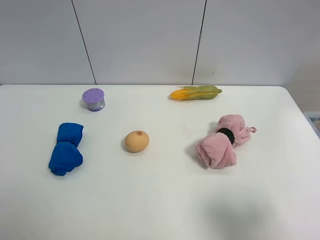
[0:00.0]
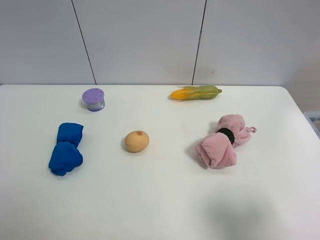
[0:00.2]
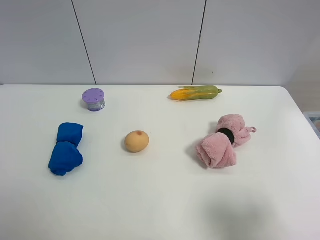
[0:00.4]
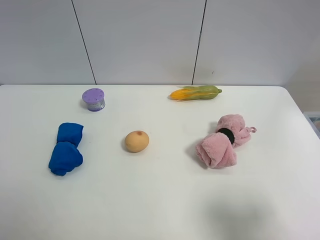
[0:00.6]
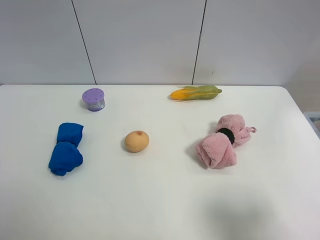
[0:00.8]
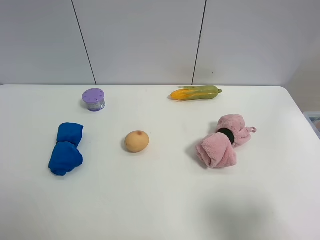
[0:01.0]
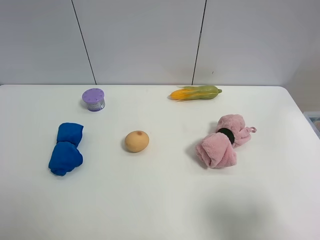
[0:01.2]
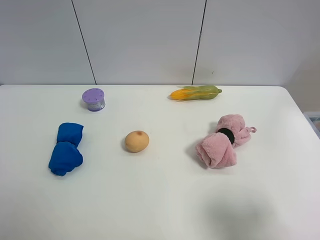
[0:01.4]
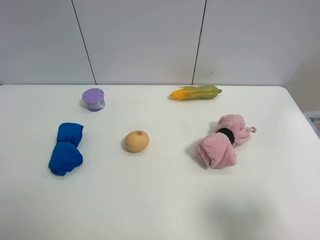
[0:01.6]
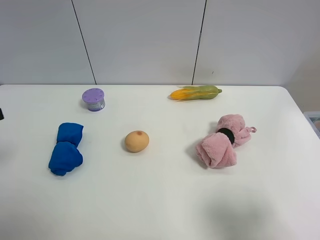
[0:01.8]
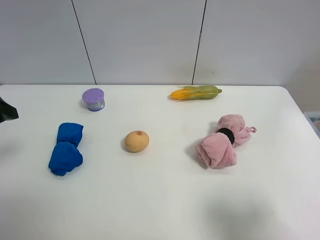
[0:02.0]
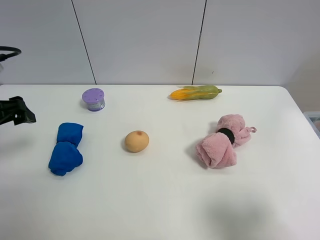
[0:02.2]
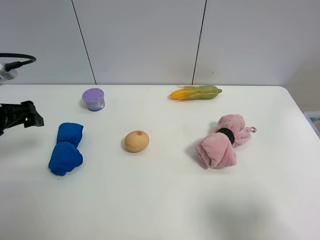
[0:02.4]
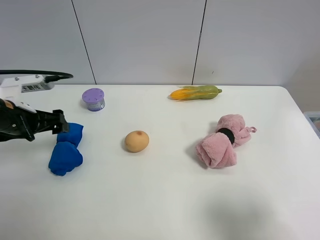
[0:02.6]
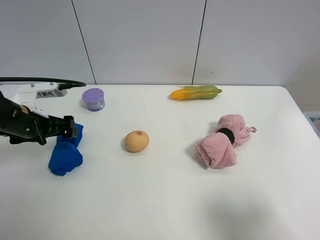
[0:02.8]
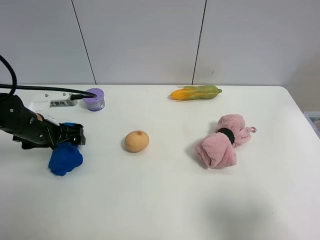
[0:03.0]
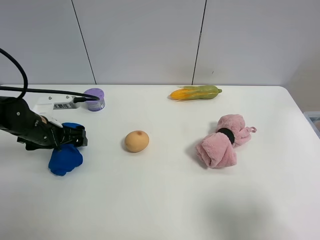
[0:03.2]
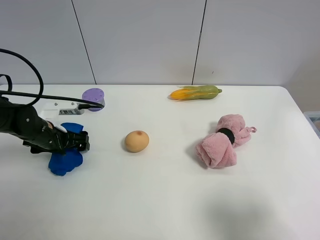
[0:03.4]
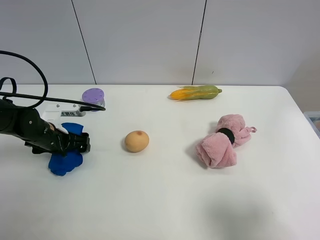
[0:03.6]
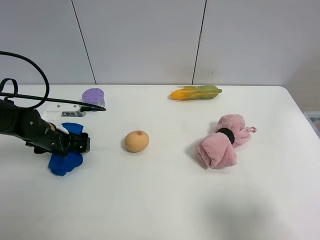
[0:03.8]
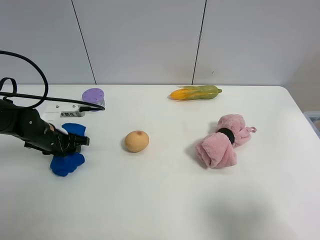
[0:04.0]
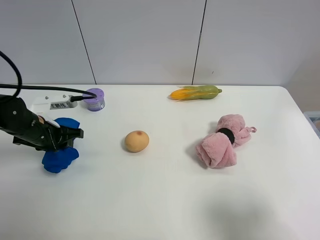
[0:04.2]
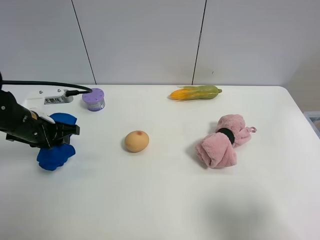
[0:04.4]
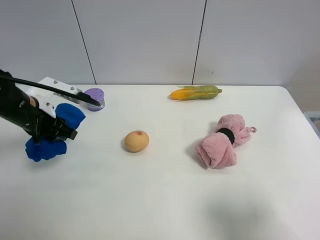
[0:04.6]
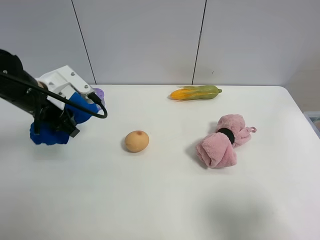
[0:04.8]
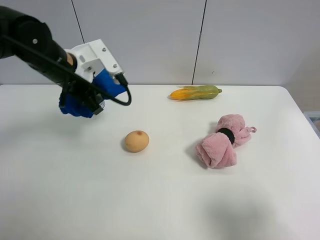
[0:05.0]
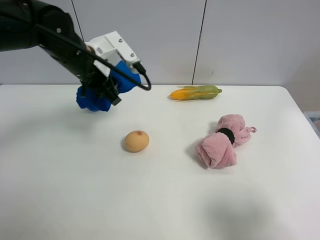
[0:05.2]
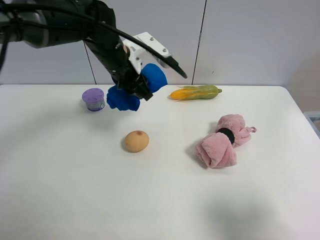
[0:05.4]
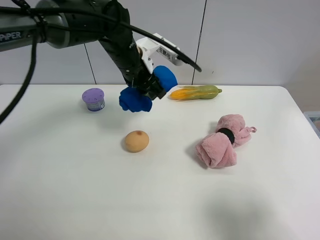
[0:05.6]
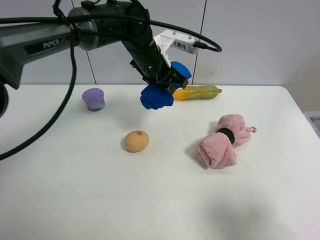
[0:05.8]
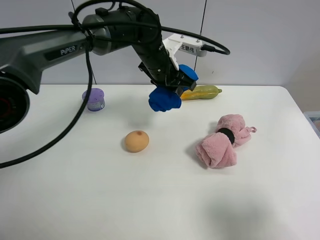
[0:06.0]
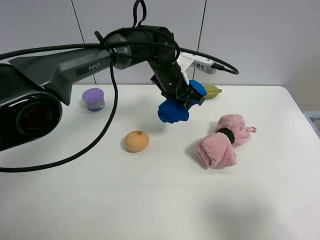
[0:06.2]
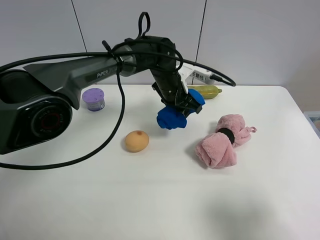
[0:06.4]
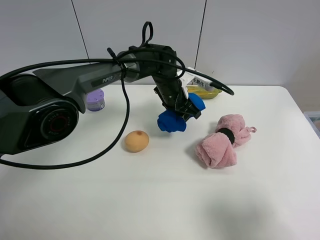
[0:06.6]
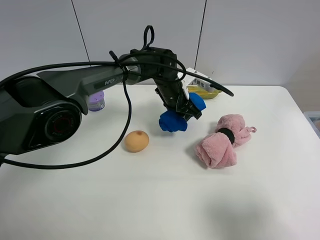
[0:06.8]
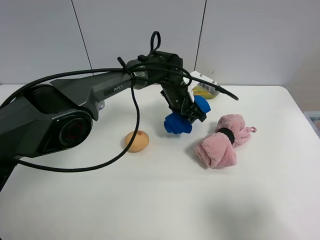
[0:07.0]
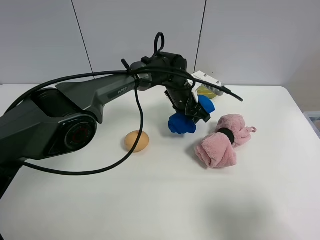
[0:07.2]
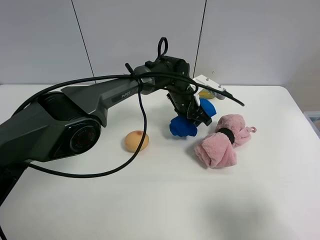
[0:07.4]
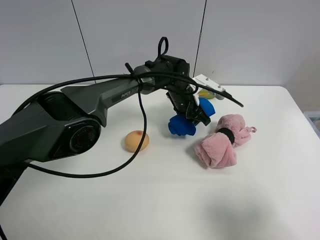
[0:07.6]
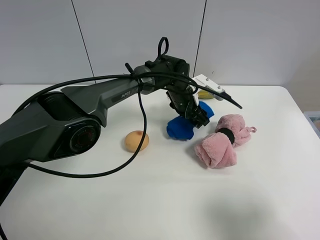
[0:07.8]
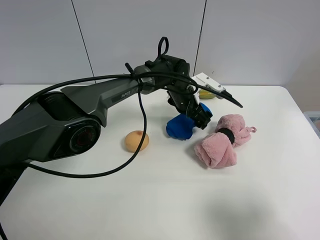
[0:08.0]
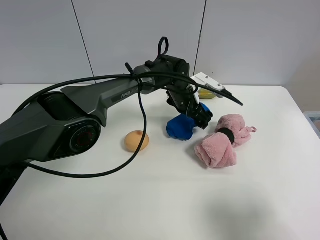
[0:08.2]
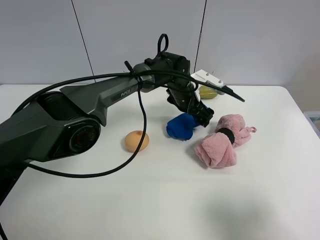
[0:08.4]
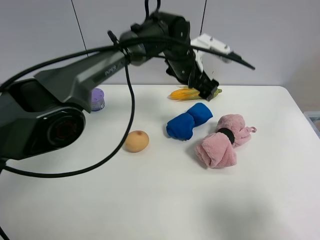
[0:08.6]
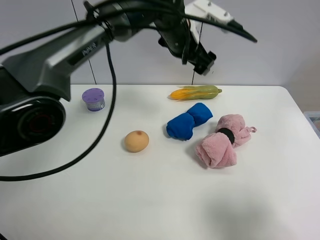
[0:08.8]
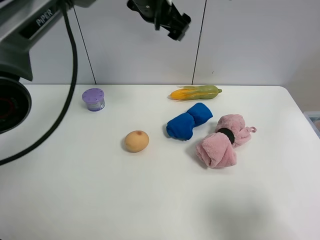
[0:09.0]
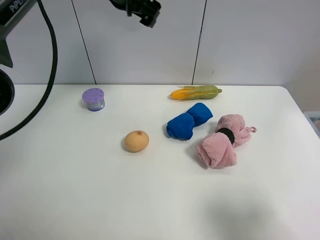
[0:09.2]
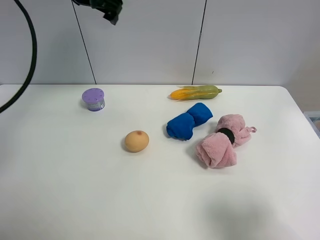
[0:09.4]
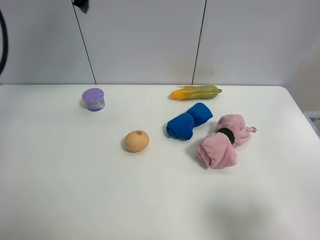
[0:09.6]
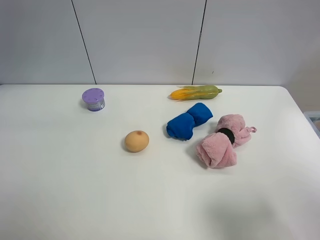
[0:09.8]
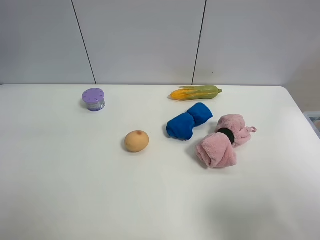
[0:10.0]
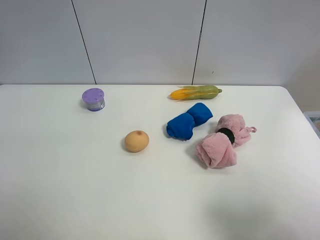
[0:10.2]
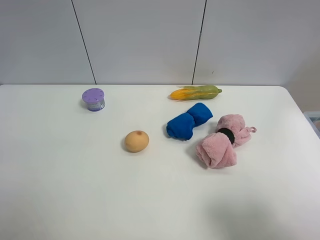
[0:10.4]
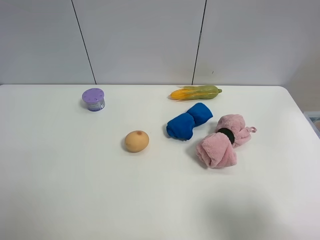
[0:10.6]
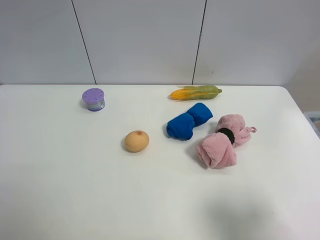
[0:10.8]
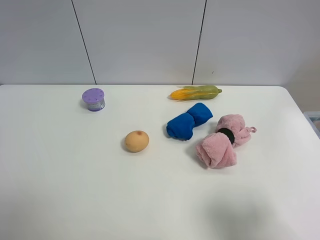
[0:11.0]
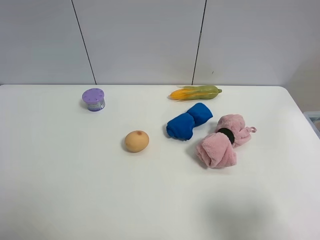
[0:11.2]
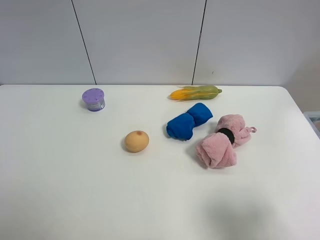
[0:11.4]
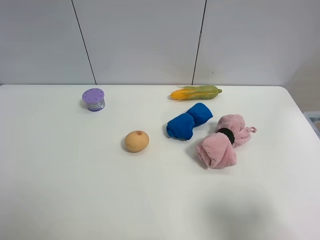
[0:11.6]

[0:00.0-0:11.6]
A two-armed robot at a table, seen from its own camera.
Task of the whole recording: the gripper move the object.
Step, 0:00.0 to 0:04.0: Grasp the blue towel with the left gripper.
Step, 0:04.2 to 0:08.0: Place the blue towel on the table with the left gripper.
0:01.4 to 0:02.8: The left gripper is displaced forward and downward by some 25 cm.
0:02.8 to 0:04.4: The left gripper closes.
0:04.4 to 0:05.8: The left gripper shifts approximately 30 cm to the right and forward.
0:05.8 to 0:07.2: The left gripper goes some 15 cm downward and to the right.
0:07.2 to 0:08.8: The left gripper heads upward, covering roughly 15 cm, and opens.
0:08.8 to 0:10.2: The left gripper travels to the left and upward by approximately 40 cm.

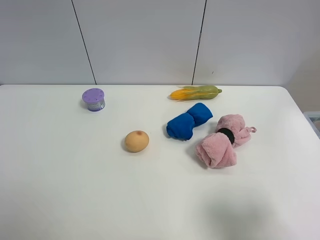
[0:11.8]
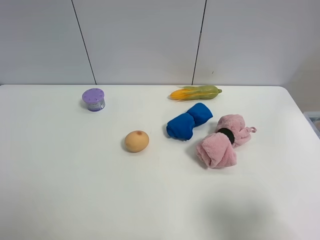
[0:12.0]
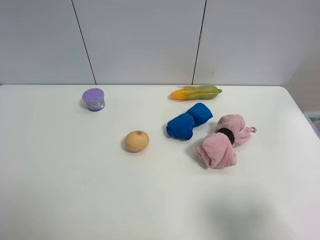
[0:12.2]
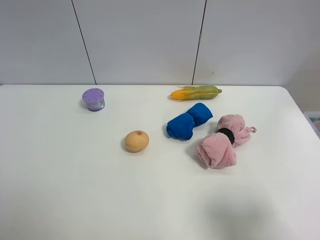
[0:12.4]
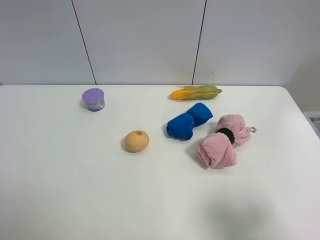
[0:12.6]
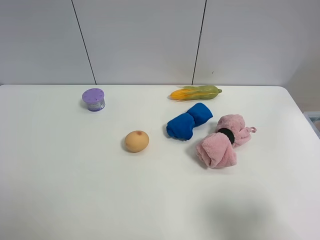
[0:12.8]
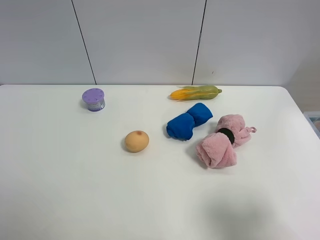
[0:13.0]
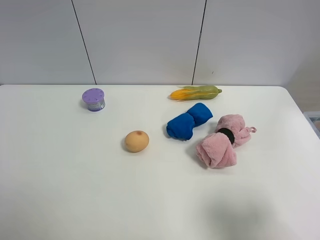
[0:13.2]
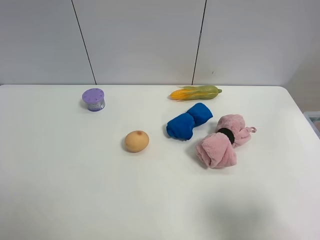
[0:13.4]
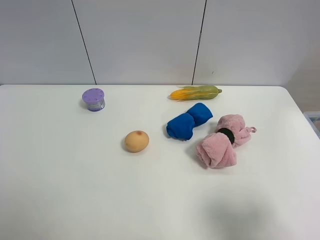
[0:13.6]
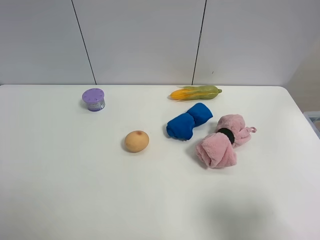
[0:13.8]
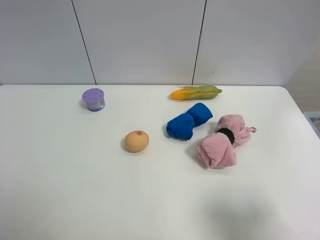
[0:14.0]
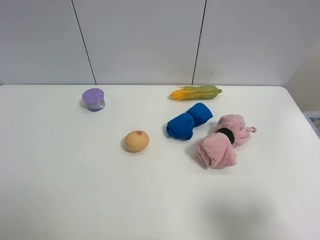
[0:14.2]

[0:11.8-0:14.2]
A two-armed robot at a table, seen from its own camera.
Task of the whole recording: the gripper move the object.
0:13.0 to 0:14.2: The two grippers keep their place.

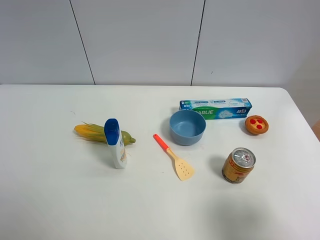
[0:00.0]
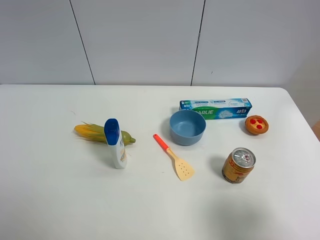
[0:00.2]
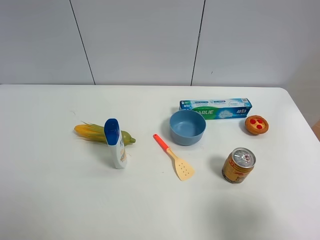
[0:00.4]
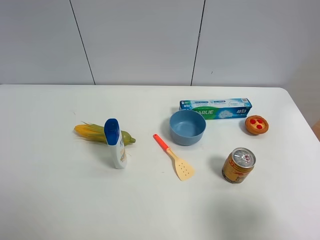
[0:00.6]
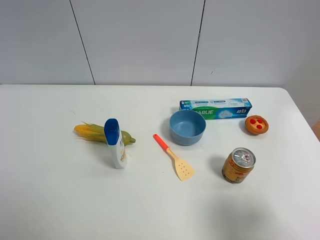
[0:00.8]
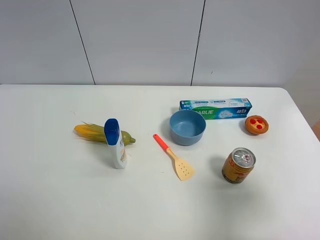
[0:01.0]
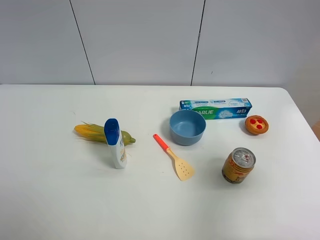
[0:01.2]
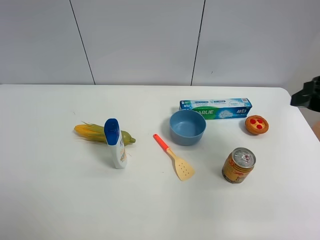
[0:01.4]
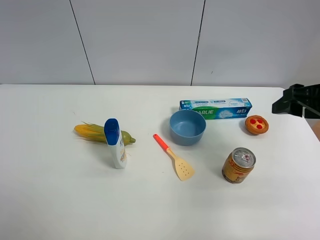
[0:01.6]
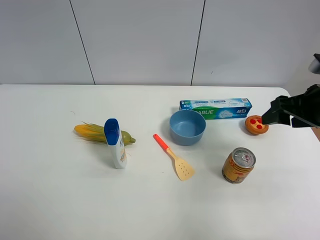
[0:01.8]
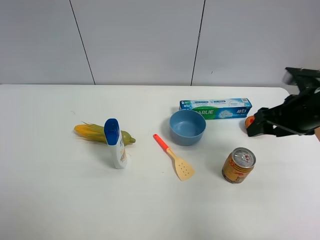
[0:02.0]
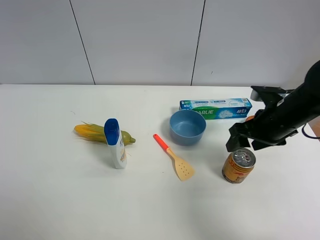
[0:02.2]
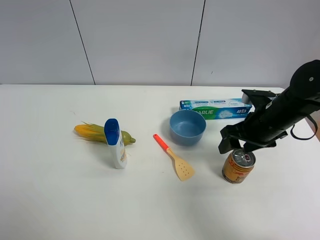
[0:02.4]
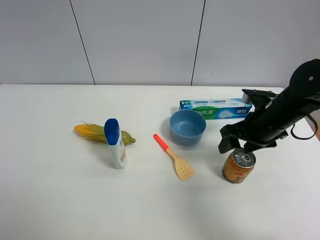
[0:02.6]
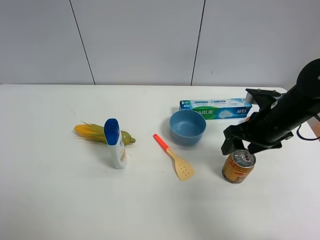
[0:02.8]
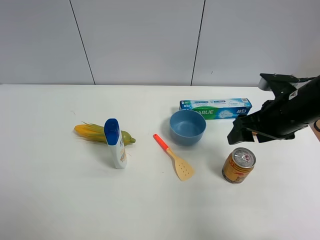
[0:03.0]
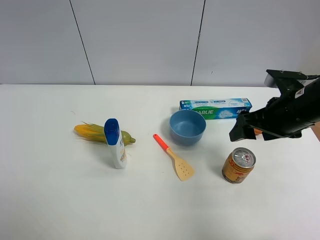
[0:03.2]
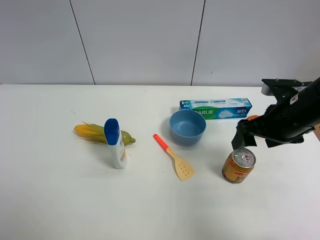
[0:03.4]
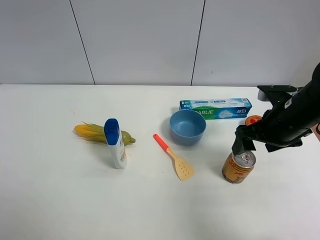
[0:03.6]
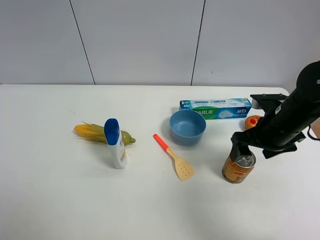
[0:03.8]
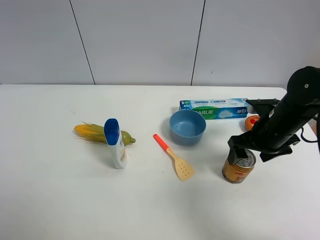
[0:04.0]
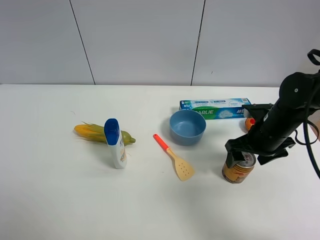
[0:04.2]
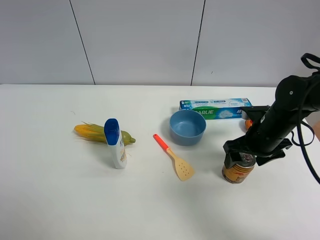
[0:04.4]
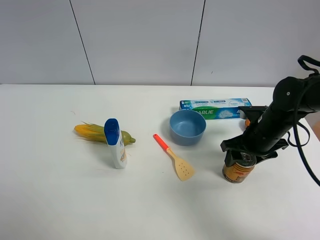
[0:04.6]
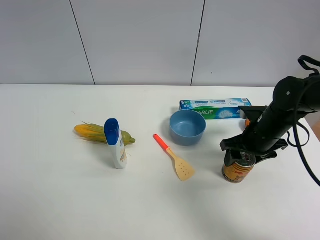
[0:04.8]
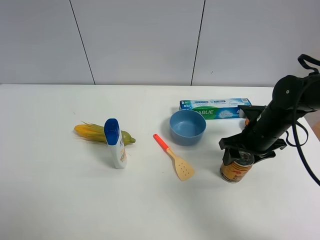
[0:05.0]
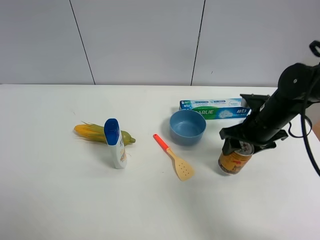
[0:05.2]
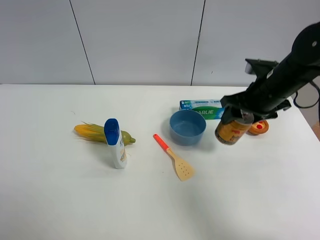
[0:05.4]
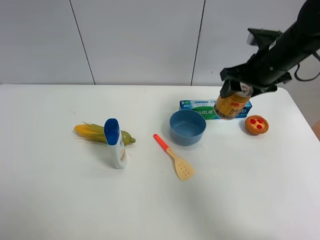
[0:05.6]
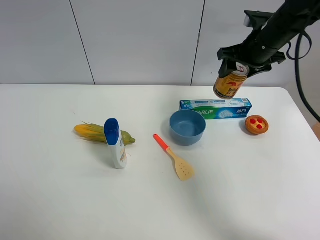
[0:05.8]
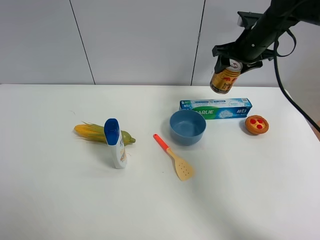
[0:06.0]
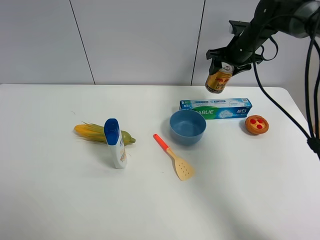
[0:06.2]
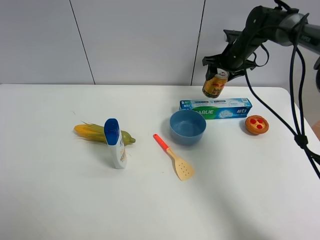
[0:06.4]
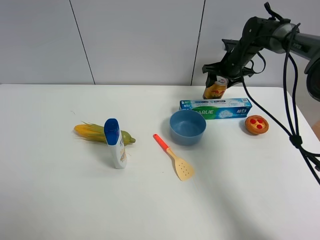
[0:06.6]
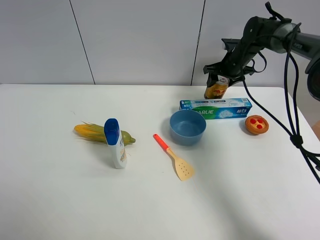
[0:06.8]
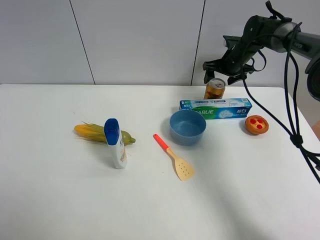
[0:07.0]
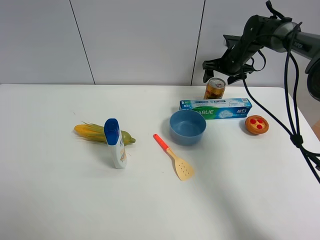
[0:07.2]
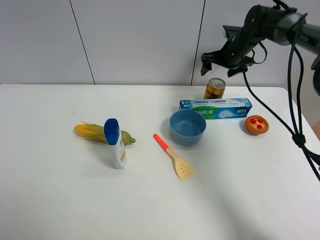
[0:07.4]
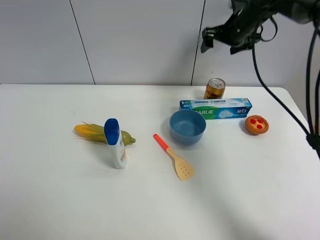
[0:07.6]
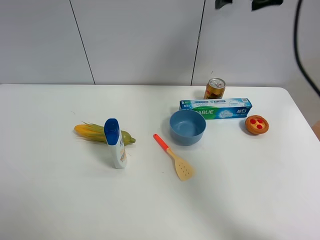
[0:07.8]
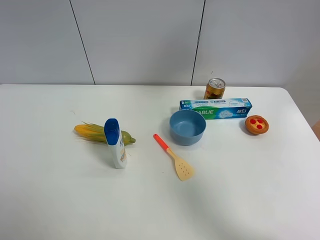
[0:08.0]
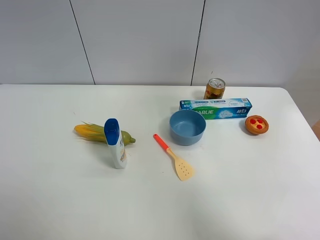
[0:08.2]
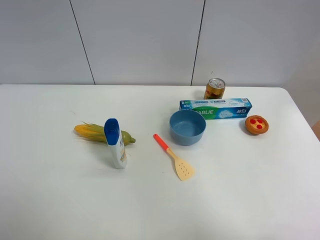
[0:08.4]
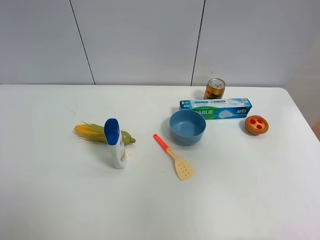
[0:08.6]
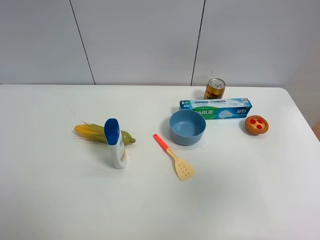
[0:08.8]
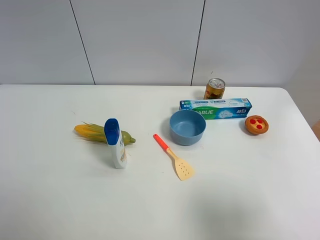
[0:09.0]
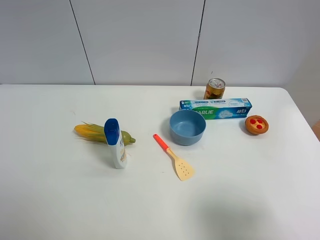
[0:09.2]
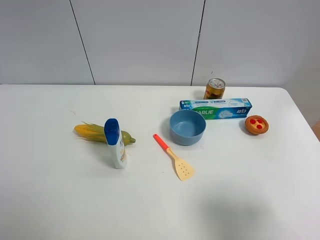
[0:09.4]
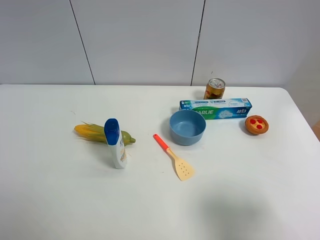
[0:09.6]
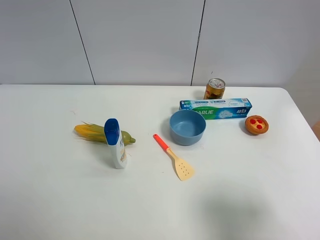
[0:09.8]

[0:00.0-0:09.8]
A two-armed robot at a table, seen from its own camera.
Task of the whole recording: the gripper move the object.
Step, 0:00.0 to 0:04.6: Grasp the red bull with the right gripper.
Step, 0:04.8 to 0:06.8: Place the red bull on the table with the right gripper.
0:00.0 to 0:01.4: The right gripper is displaced forward by approximately 20 cm, and closes up.
0:01.4 to 0:02.8: The right gripper travels downward, to the left and forward by about 15 cm.
0:02.8 to 0:04.2: The right gripper shifts approximately 5 cm downward, and opens up.
0:04.2 to 0:05.6: The right gripper goes roughly 15 cm upward and forward, and closes its fingers.
0:05.6 to 0:07.0: The right gripper moves forward and downward, roughly 20 cm, and opens.
0:07.0 to 0:08.4: The right gripper heads upward and backward, covering approximately 50 cm, and opens its fingers.
0:08.4 to 0:09.8: The right gripper heads downward and backward, covering some 35 cm.
